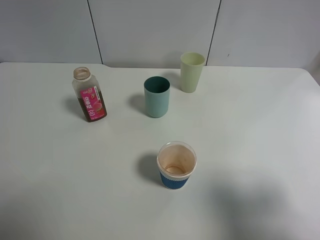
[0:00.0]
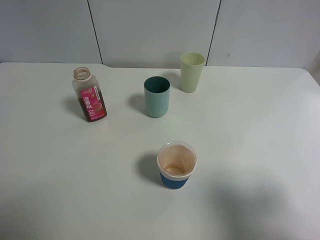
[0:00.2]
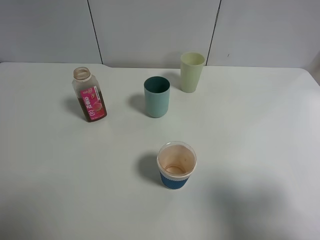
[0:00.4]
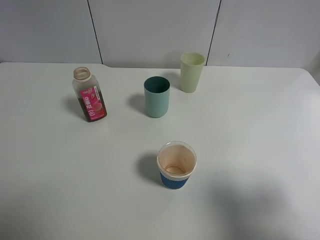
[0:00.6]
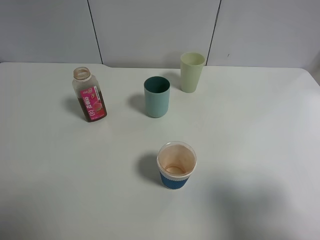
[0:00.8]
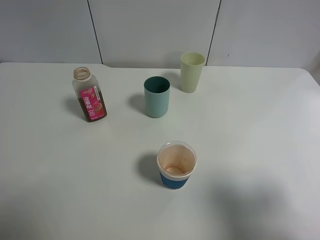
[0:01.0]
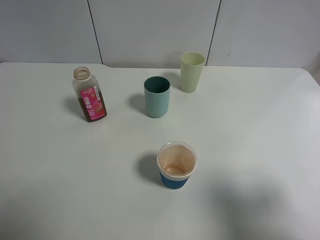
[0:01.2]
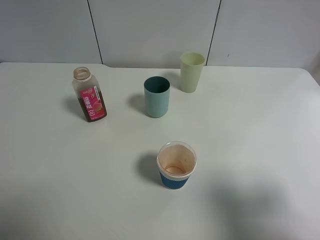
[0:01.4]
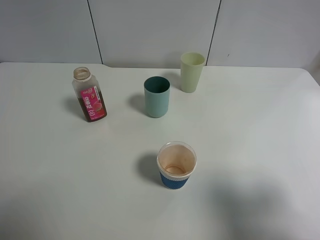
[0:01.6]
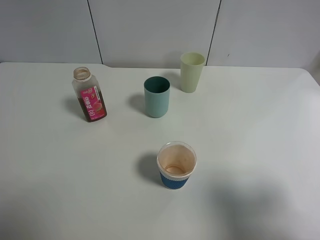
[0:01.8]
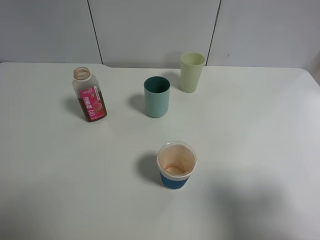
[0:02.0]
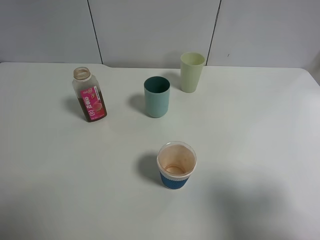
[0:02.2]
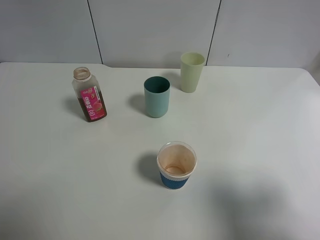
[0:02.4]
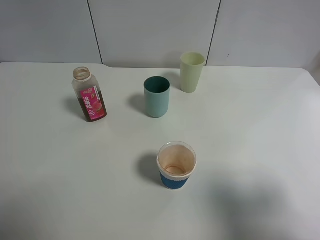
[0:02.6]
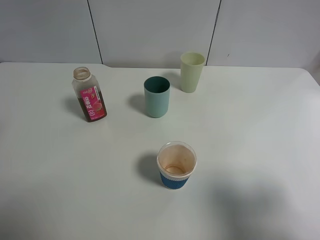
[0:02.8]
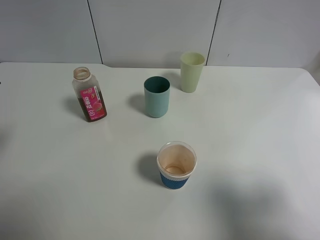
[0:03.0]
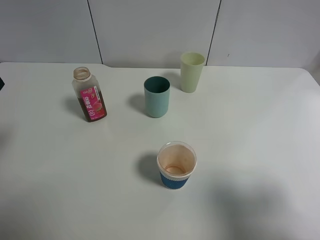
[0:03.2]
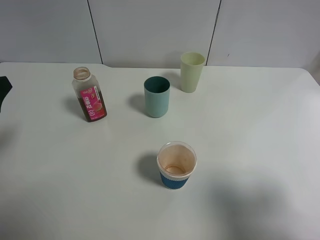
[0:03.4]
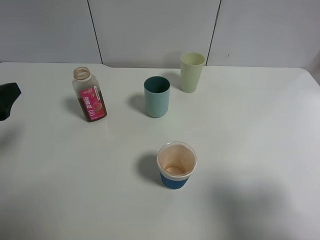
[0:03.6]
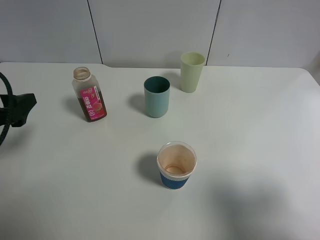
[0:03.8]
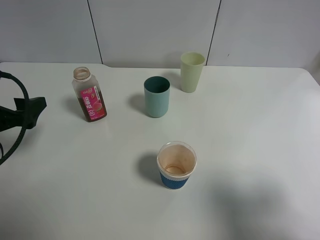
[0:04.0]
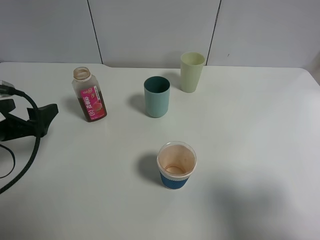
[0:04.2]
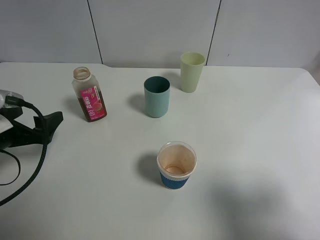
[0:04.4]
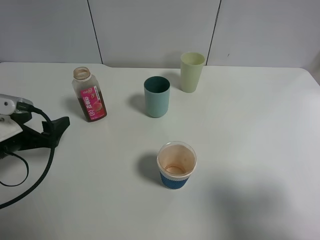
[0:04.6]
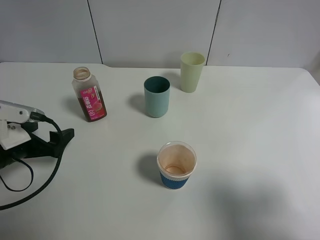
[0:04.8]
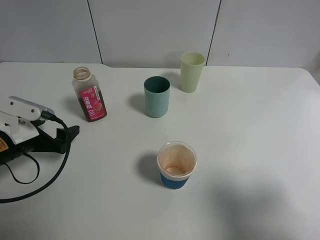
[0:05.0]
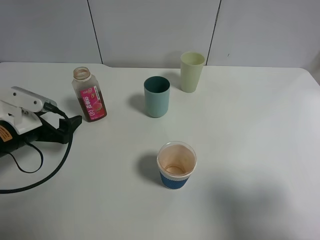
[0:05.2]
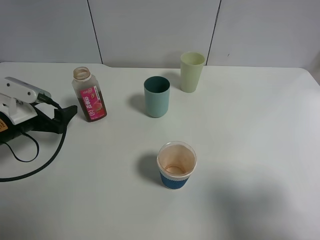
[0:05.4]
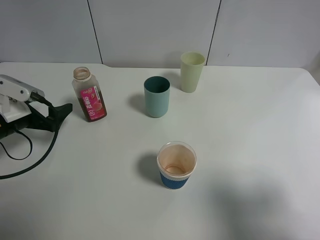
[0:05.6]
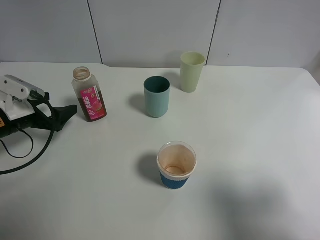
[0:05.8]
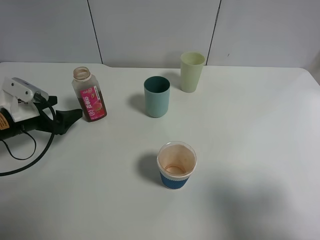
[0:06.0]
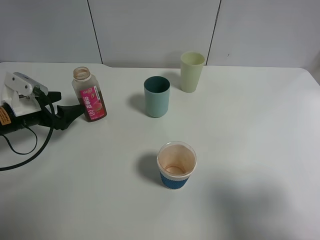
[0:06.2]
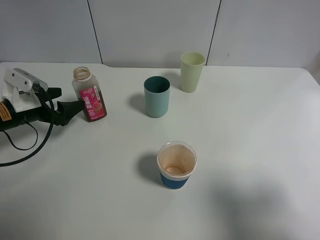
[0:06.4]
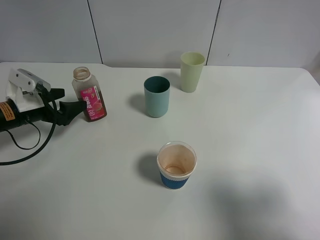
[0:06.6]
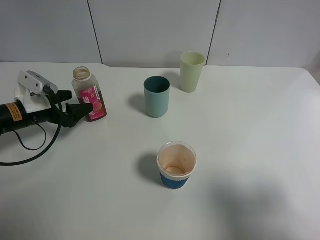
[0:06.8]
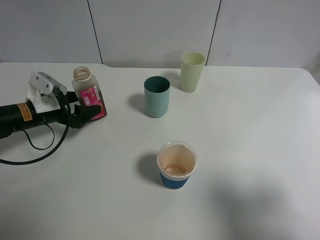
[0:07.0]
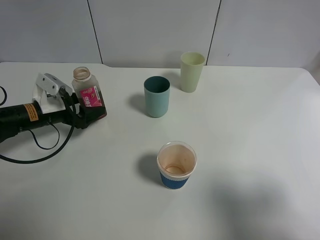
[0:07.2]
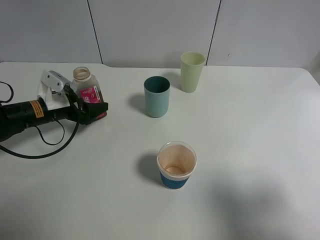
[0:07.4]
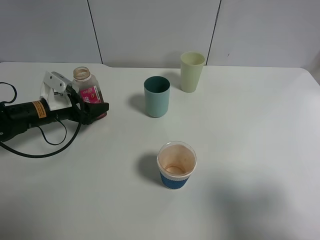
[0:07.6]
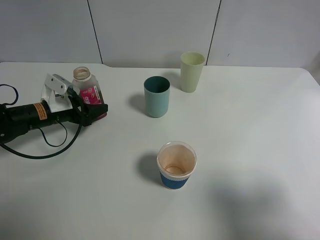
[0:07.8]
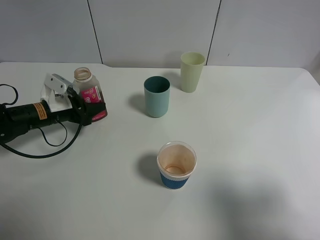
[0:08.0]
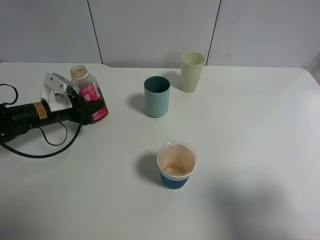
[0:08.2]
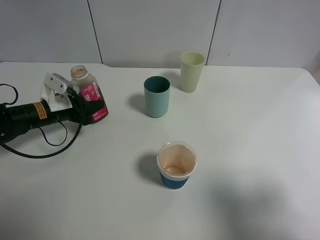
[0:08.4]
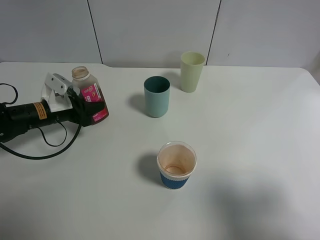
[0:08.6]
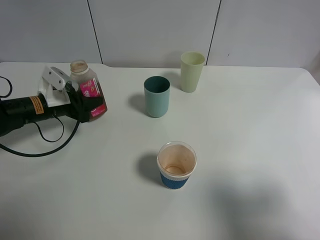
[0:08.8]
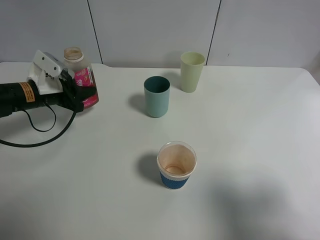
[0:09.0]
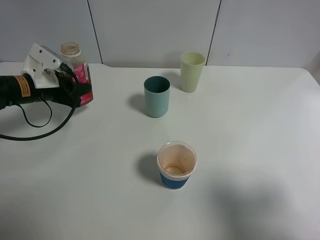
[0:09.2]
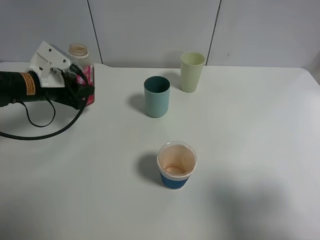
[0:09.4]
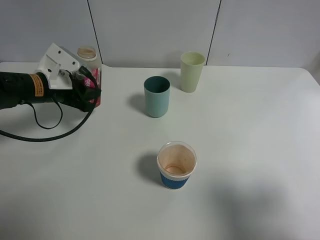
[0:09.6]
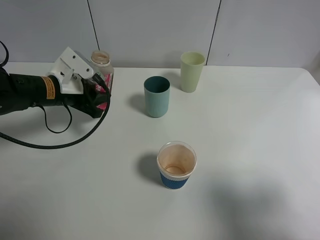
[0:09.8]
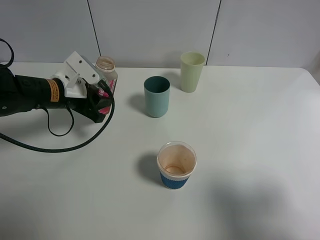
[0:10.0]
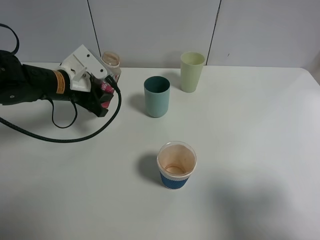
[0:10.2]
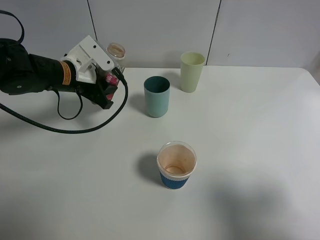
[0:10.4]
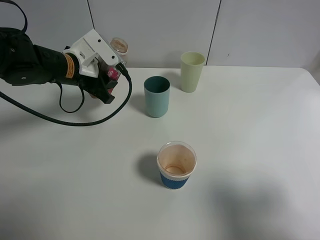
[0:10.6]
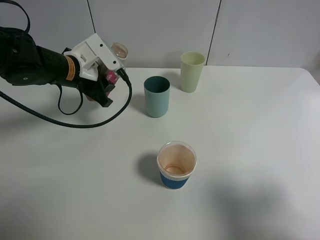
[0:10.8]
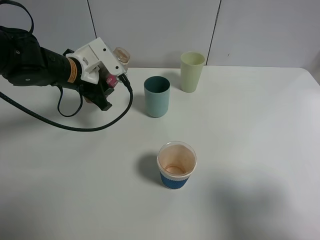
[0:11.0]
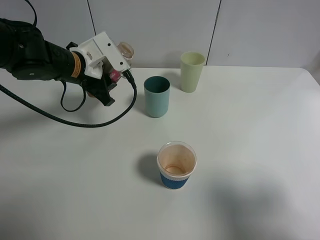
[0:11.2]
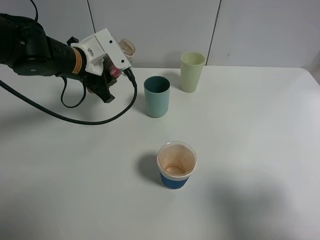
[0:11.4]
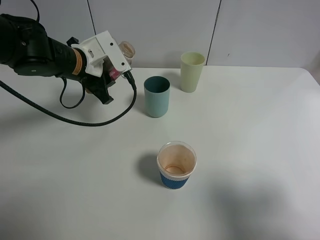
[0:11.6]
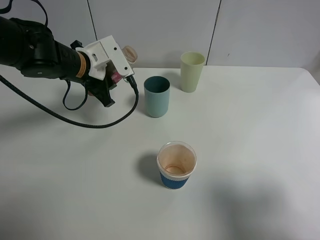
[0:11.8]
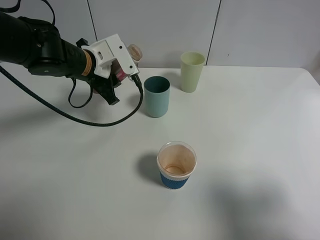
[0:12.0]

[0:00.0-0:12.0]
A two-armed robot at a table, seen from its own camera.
Task of the whole recording: use a gripper to hold the bottle of the drink and pour it into a random cup.
Step, 0:00.0 to 0:08.2: Grasp the cranberry juice bottle with the left gripper.
0:00.0 to 0:01.6: Both grippers stay about where they are.
0:03.0 to 0:04.4: The left gripper moves downward and forward, roughly 10 cm.
0:04.4 to 0:06.0: The left gripper travels forward by approximately 10 cm.
0:06.0 to 0:07.6: The left gripper travels forward by roughly 5 cm.
0:07.6 to 0:09.0: The left gripper heads upward, covering about 5 cm, and closes its fingers.
0:09.0 to 0:10.4: The left gripper moves to the right, roughly 10 cm.
0:10.4 to 0:12.0: There are only small adjustments of the grippers.

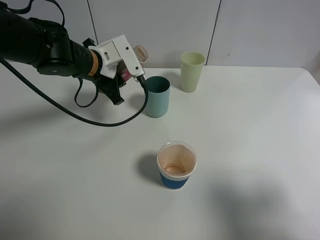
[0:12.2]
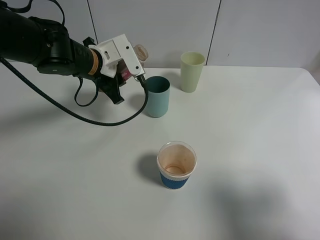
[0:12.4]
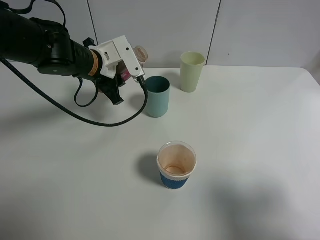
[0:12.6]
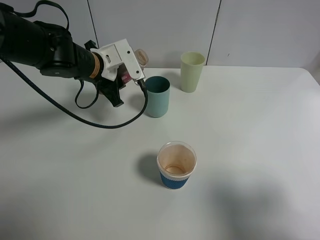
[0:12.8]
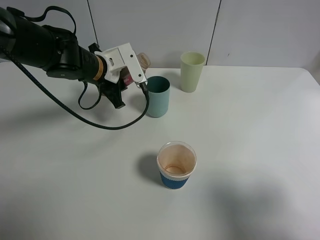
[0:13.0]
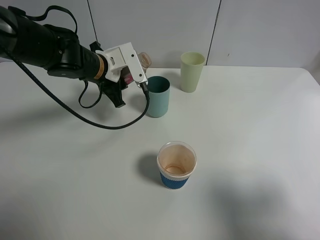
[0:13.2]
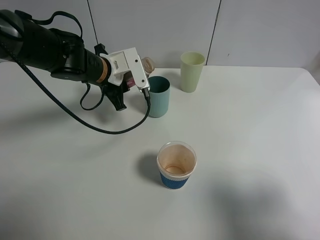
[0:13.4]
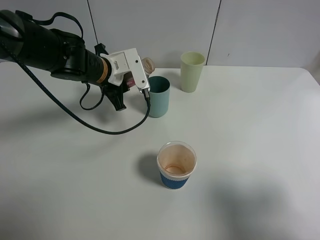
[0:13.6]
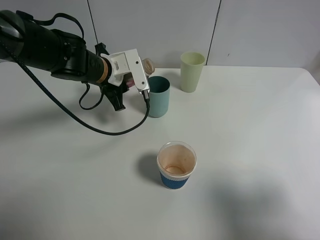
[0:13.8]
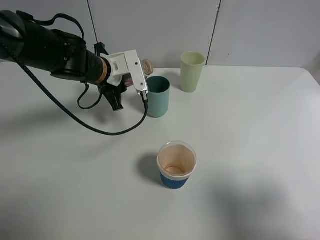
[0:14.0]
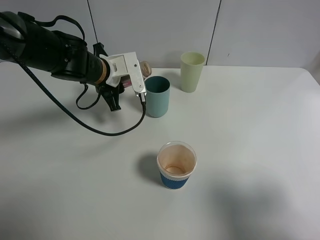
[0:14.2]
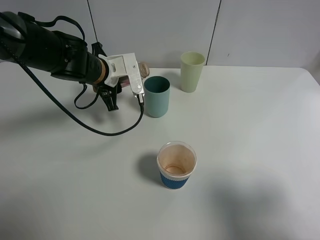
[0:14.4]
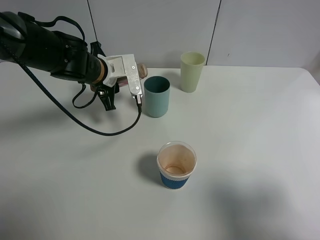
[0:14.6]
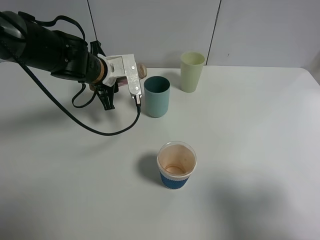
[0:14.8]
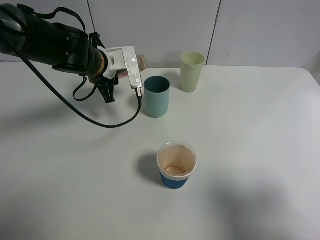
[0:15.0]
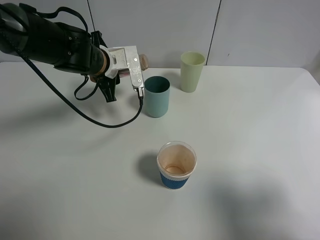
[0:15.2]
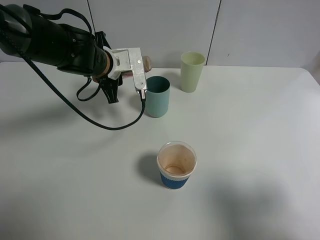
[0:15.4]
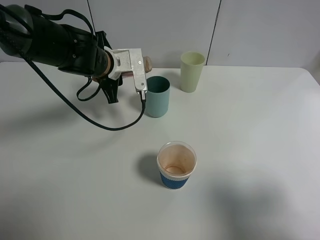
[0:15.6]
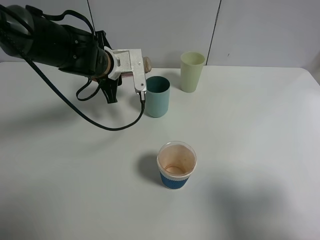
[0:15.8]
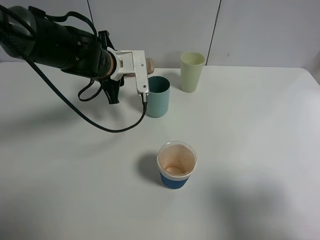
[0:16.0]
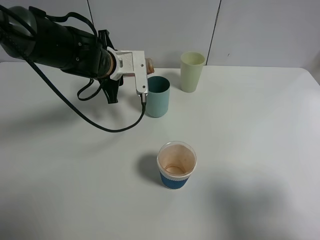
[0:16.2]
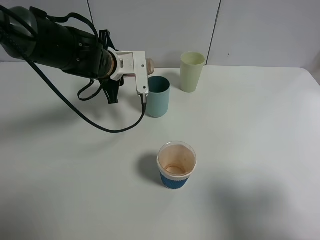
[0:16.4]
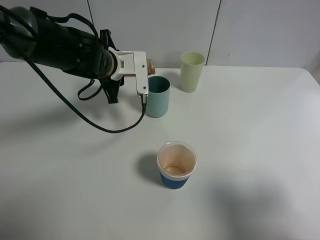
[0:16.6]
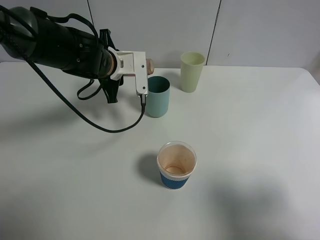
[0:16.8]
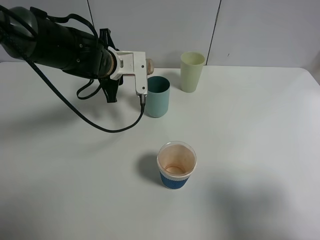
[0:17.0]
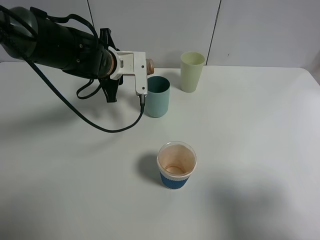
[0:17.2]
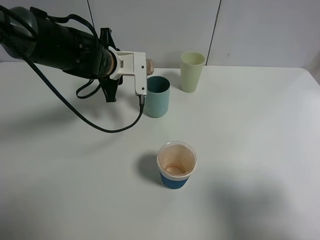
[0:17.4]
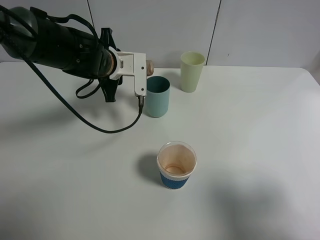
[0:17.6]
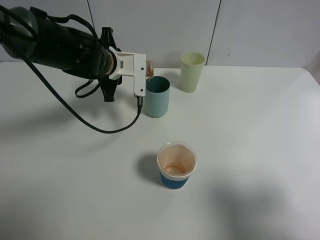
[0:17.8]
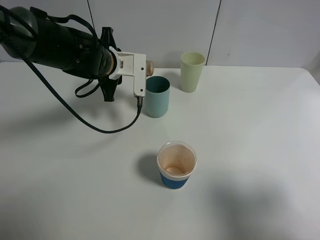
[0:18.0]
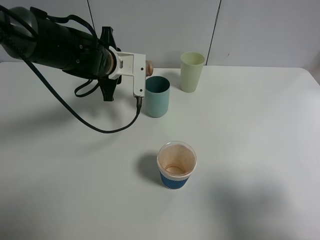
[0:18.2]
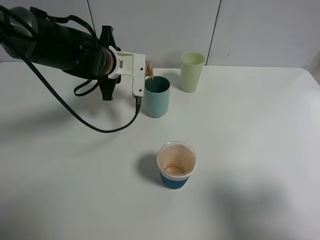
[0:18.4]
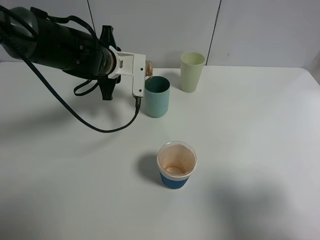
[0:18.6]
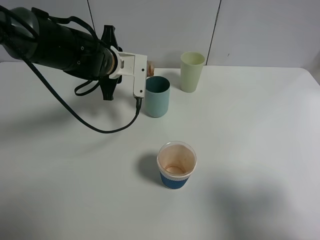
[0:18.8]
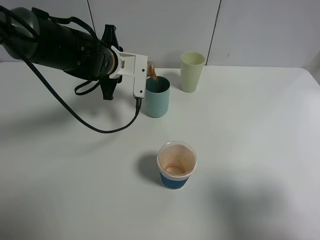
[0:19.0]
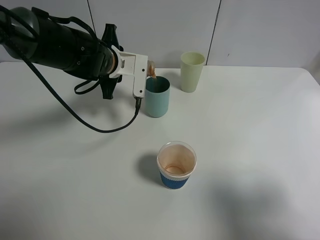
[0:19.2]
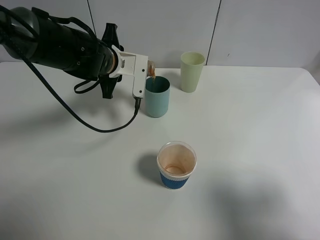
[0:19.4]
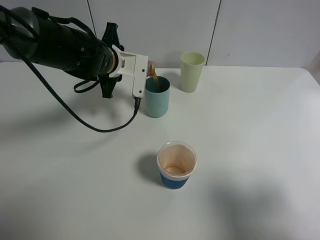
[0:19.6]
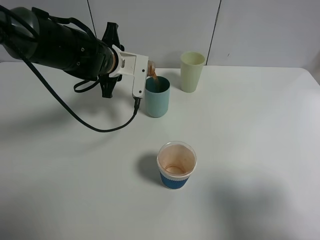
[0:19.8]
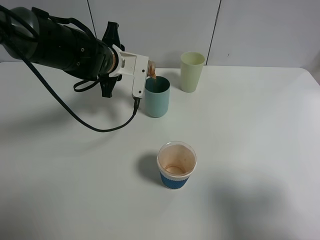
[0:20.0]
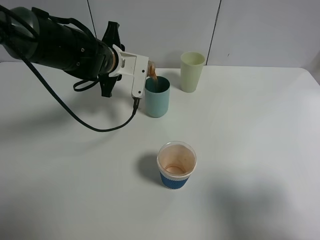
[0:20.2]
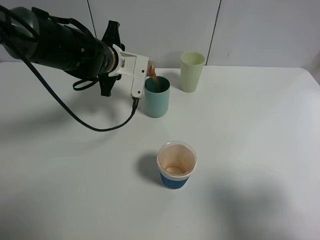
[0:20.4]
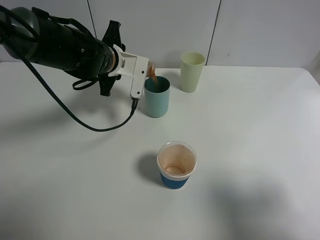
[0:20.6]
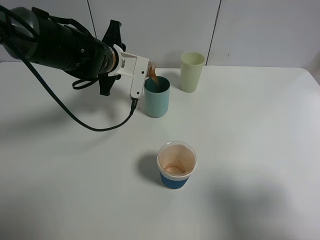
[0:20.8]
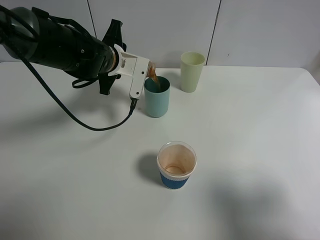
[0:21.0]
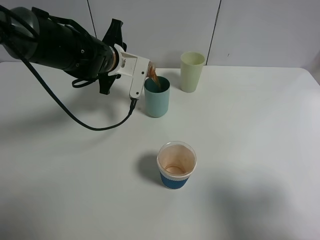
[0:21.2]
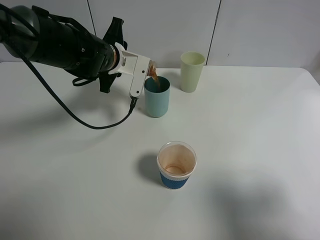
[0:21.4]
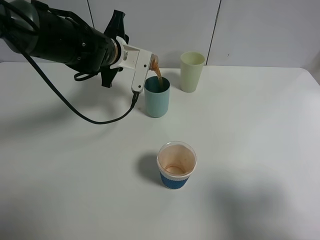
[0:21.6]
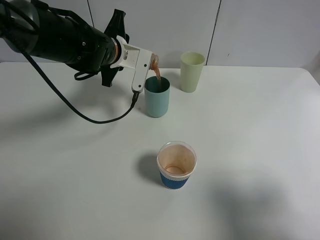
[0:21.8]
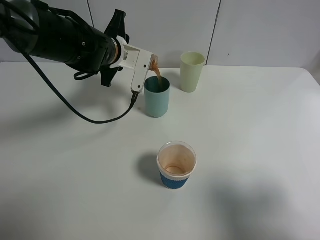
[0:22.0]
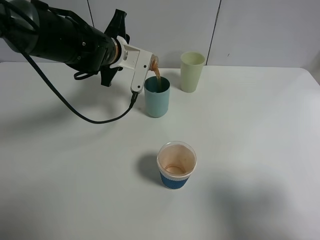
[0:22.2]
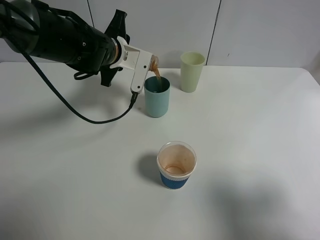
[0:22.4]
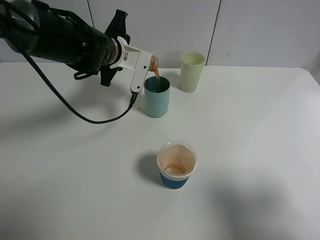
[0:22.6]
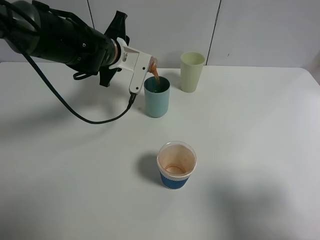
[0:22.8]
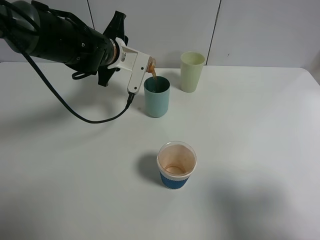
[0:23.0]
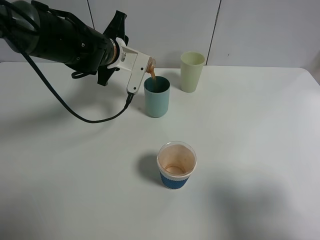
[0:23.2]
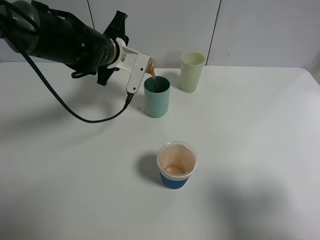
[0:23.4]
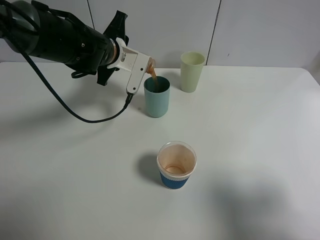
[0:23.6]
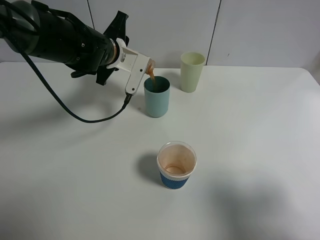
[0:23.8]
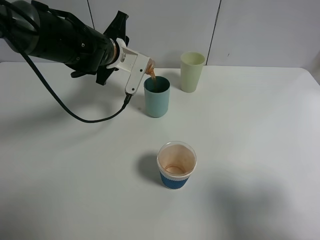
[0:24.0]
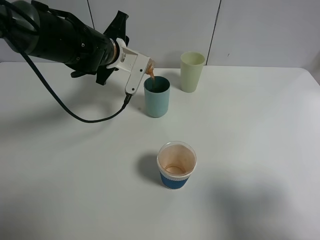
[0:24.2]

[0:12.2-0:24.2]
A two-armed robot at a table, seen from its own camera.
Task of the whole recording: use a gripper to hold the bottle of the drink and pour it into a random cup.
0:12.2 to 0:13.8: The grippers move only a little.
0:13.8 to 0:15.2: The grippers stay close to where they were, moving slightly.
0:15.2 to 0:18.2: The grippers make only small movements.
0:18.2 to 0:22.6: The grippers make only small movements.
0:22.6 to 0:24.2: The grippers stay close to where they were, moving slightly.
